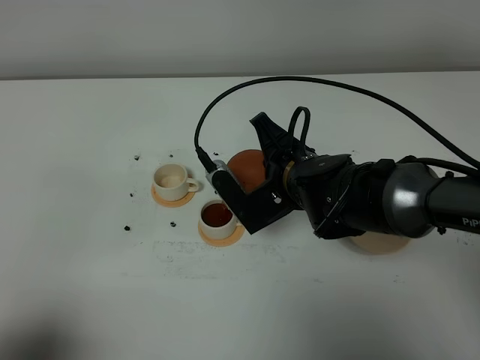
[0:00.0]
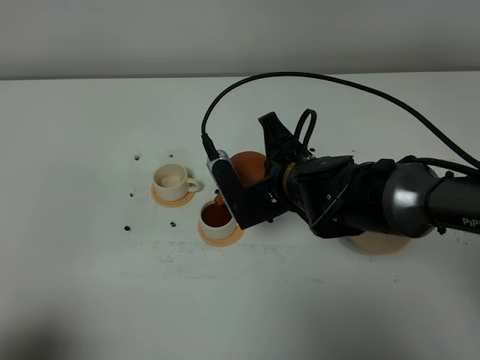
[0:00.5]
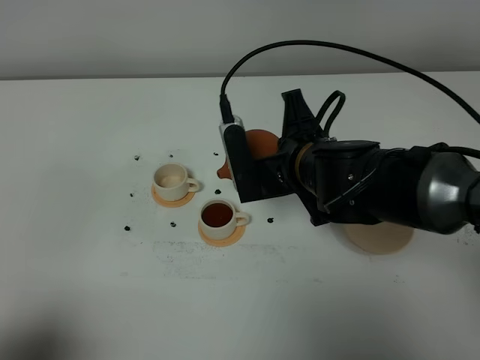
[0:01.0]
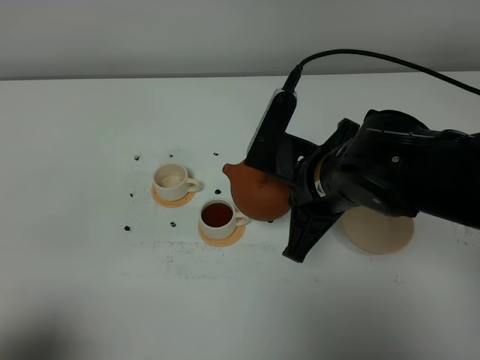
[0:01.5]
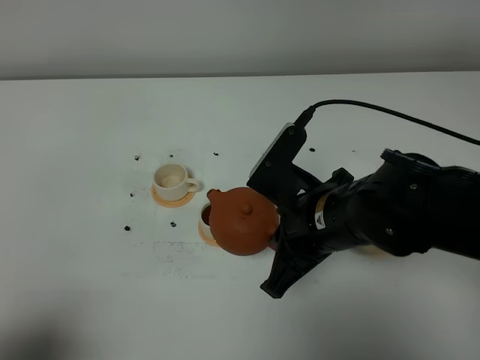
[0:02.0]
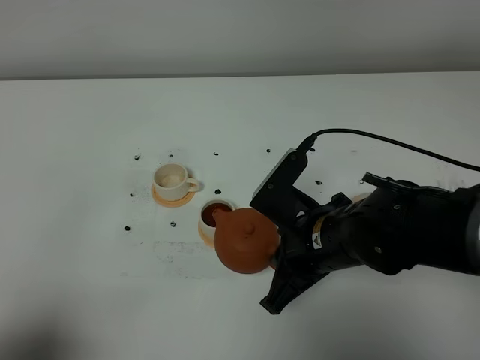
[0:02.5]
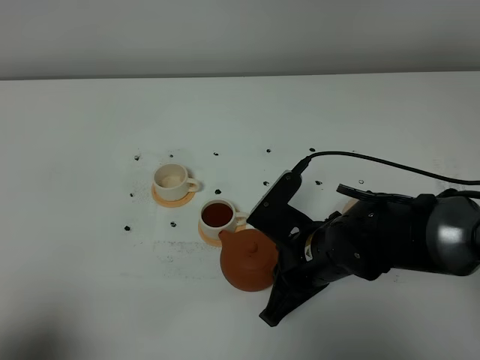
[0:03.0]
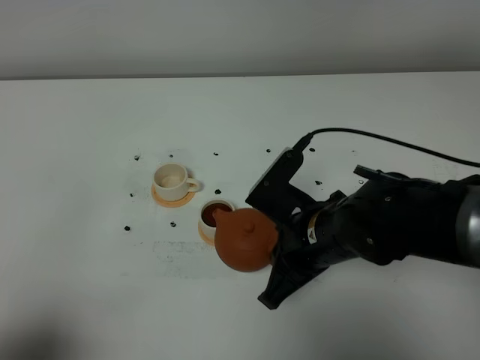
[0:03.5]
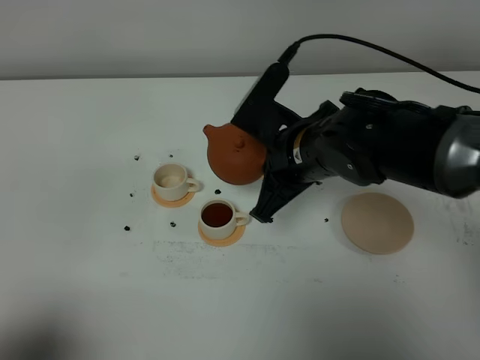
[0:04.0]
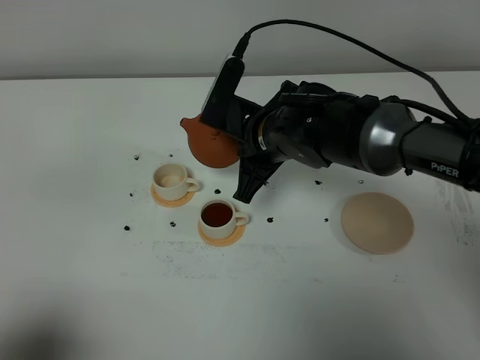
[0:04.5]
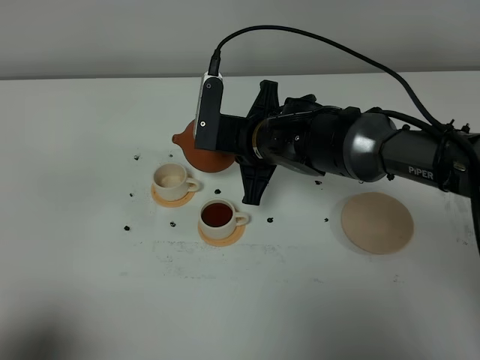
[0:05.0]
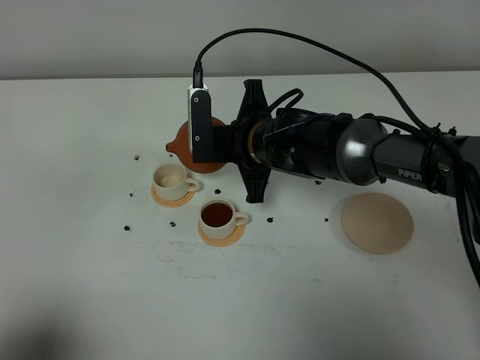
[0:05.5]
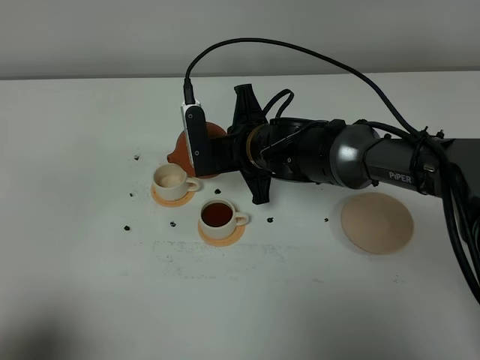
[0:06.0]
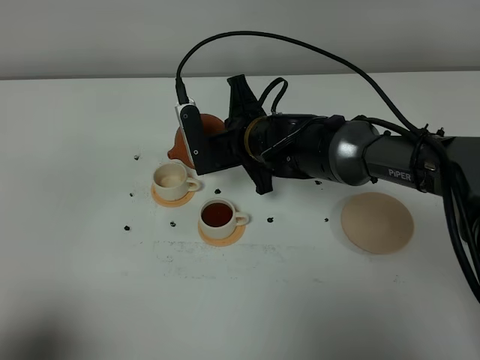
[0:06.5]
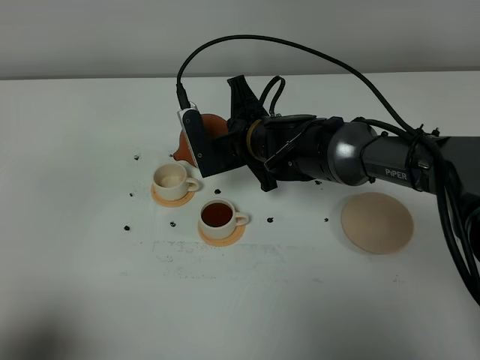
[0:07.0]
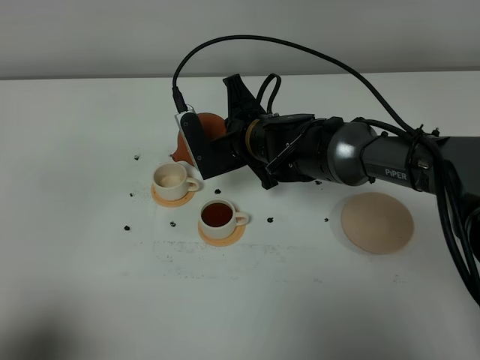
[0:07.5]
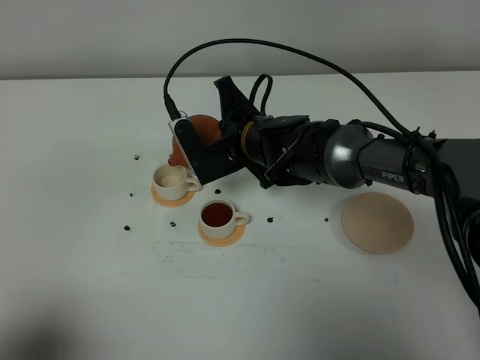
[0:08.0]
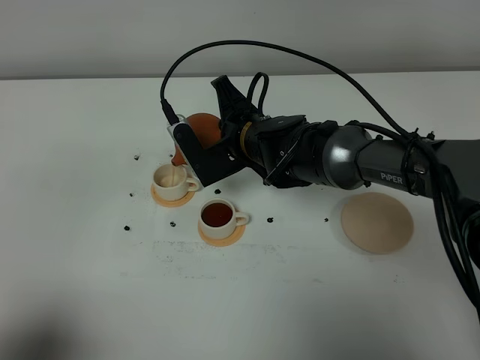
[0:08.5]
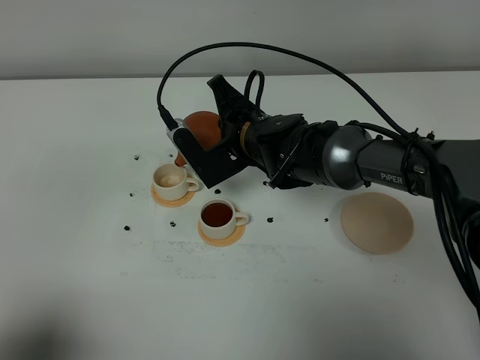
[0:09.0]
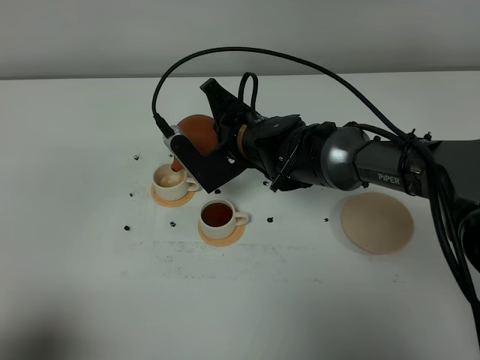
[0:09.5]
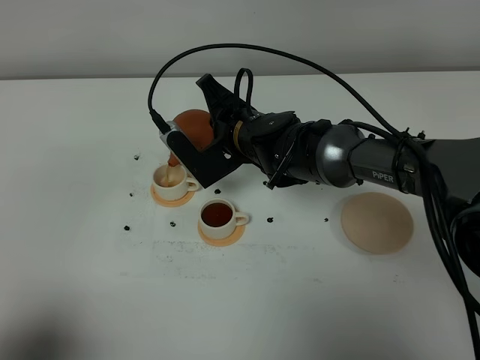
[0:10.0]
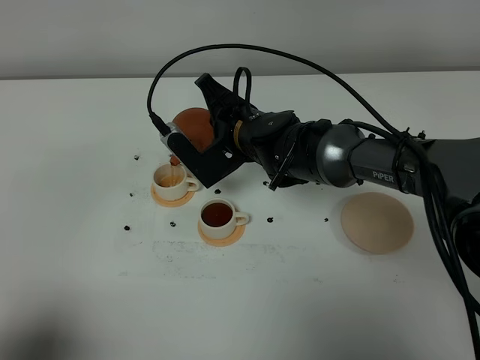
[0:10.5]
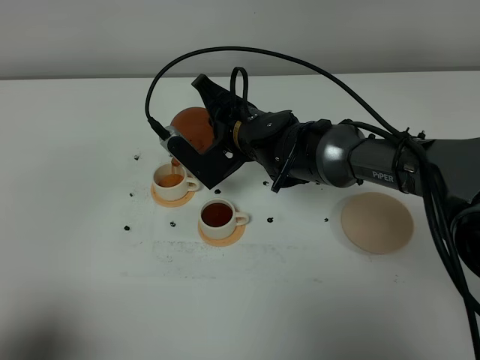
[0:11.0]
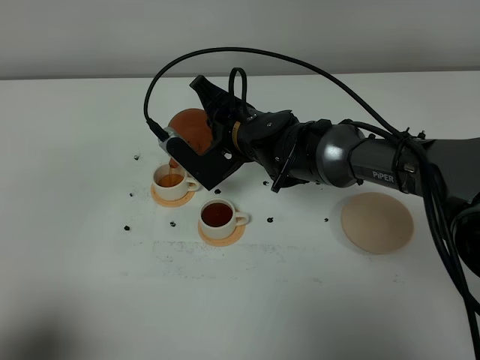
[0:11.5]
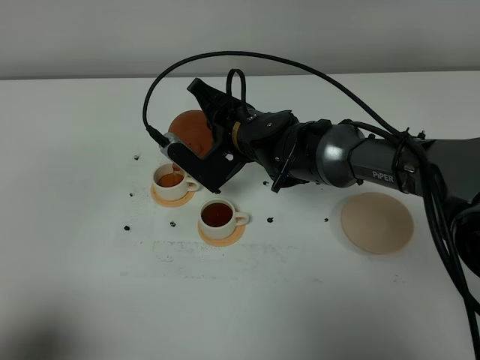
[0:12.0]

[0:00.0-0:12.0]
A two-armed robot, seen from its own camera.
Task of the whole recording: grasp the brown teapot and pour the tea into the two white teacups one by one, put the brown teapot back in its original place.
0:00.0 to 0:02.0: The right gripper moves backward, some 10 cm.
0:02.0 to 0:04.0: The right gripper shifts approximately 10 cm forward, and reaches about 5 cm downward, then returns.
0:04.0 to 0:06.0: The right gripper shifts approximately 10 cm downward and forward.
0:06.0 to 0:08.0: The grippers make only small movements.
0:08.0 to 0:10.0: The grippers make only small movements.
0:10.0 to 0:12.0: There are only small adjustments of the grippers.

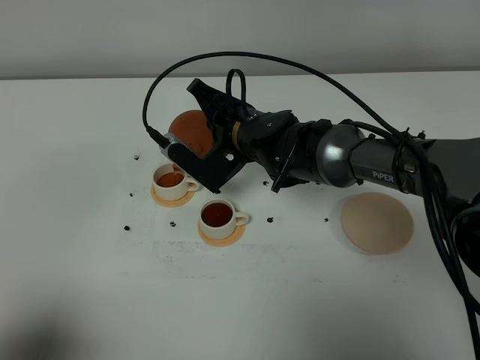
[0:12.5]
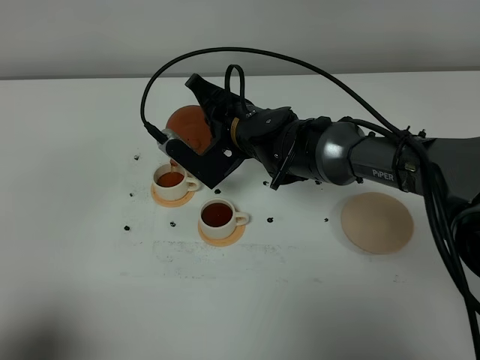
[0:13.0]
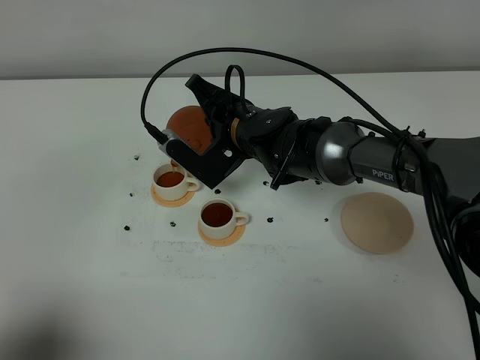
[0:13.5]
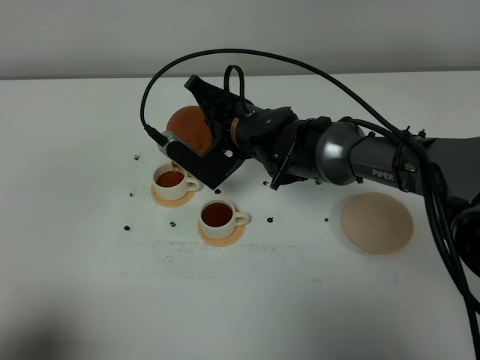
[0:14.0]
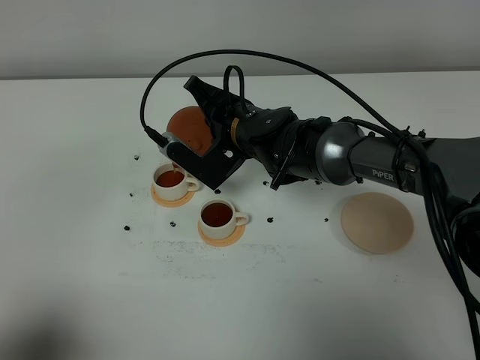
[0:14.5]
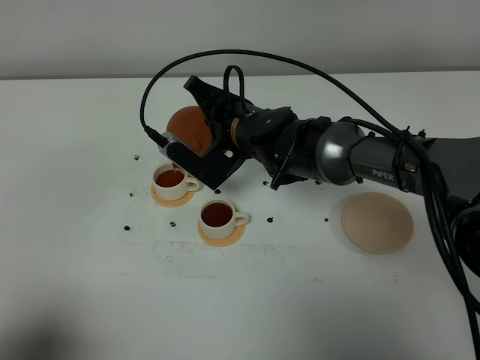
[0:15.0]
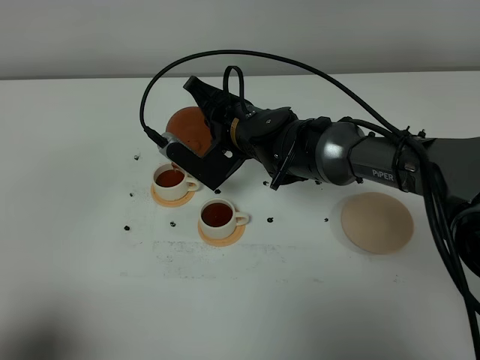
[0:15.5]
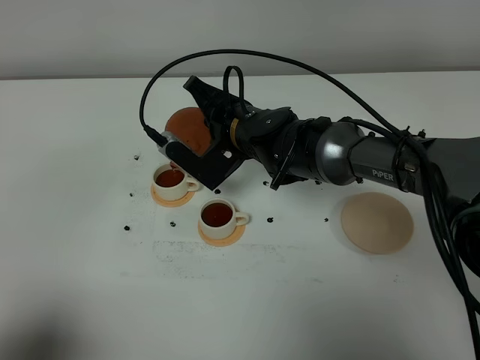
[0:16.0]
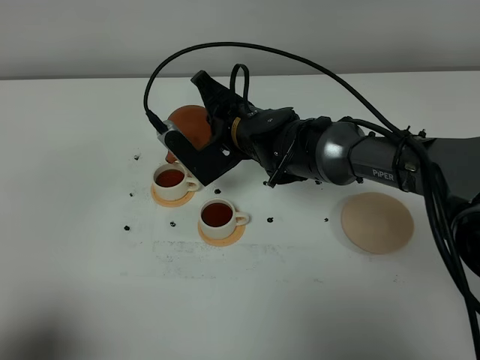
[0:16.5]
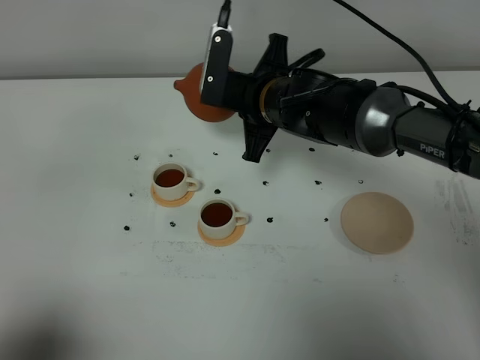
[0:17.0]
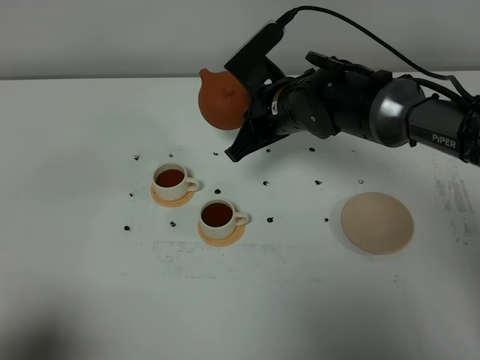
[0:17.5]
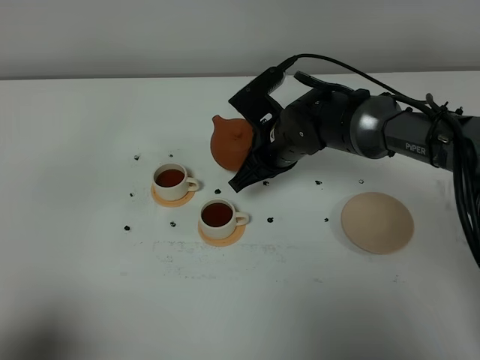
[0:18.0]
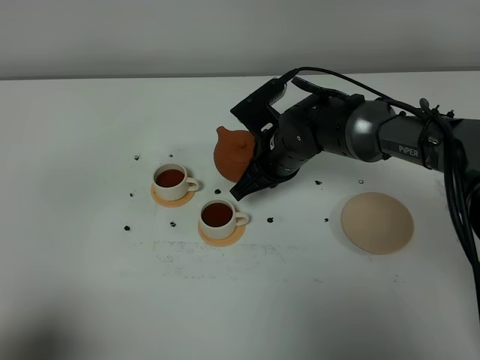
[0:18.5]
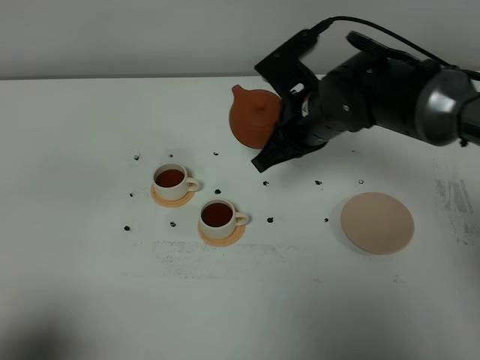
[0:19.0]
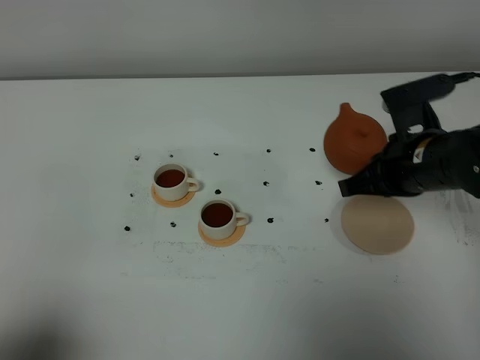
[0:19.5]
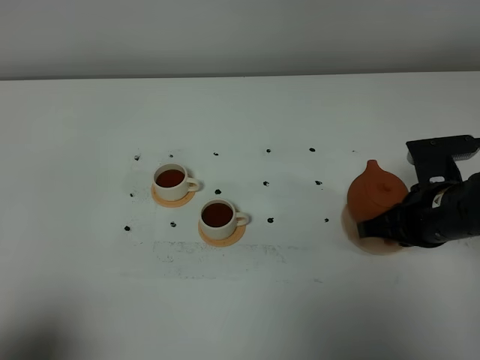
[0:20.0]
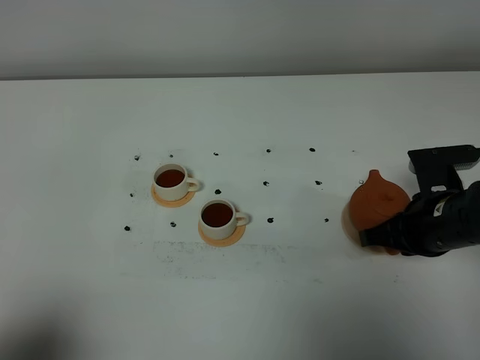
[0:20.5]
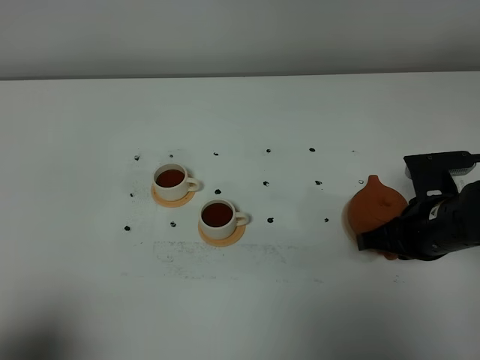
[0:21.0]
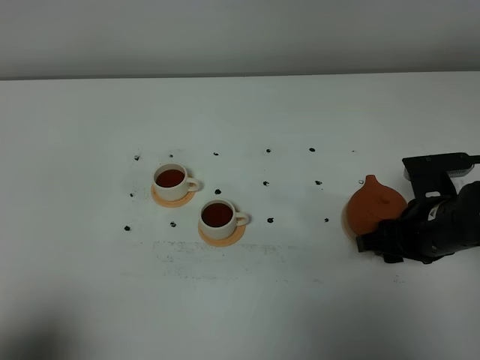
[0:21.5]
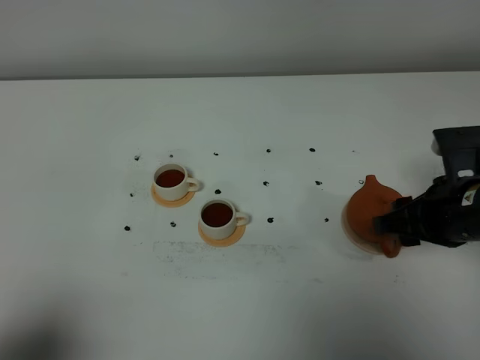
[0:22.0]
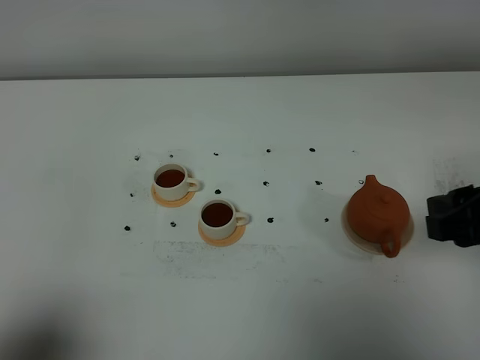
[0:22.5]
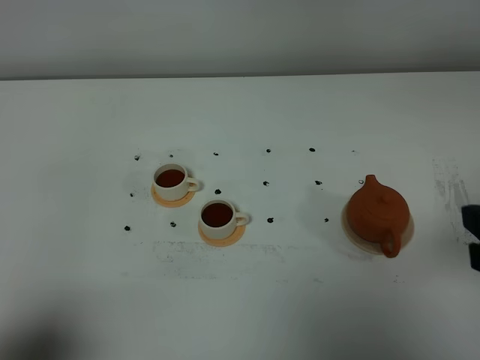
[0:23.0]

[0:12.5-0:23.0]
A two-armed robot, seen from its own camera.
Task of the whole recording: grasp the brown teapot and pour the tea into the two white teacups one by one, put the brown teapot back in its original place.
Step, 0:12.5 to 0:16.5: Pour tea into the teacup with the right gripper.
0:12.5 to 0:14.5: Both grippers stay put.
0:14.5 to 0:16.5: The grippers make only small movements.
0:16.5 to 0:19.0: The right gripper heads to the right, covering approximately 10 cm.
0:19.0 to 0:21.0: The right gripper goes approximately 20 cm to the right, backward and downward.
0:21.0 to 0:23.0: The right gripper goes some 20 cm upward and backward, and opens up.

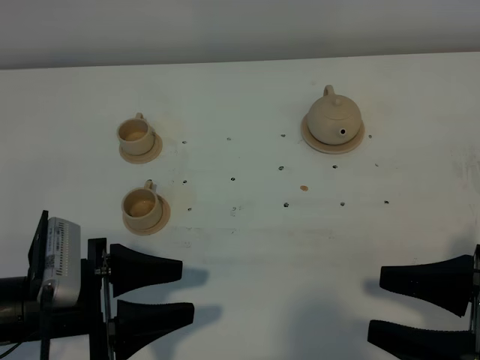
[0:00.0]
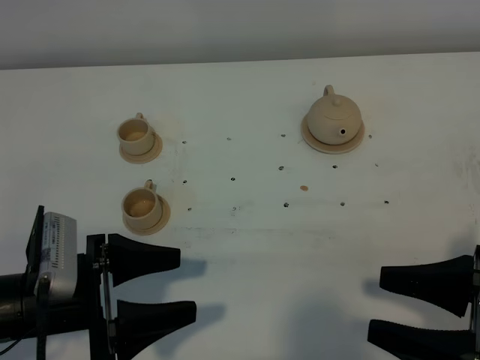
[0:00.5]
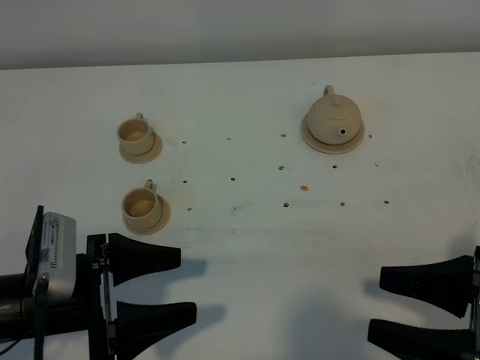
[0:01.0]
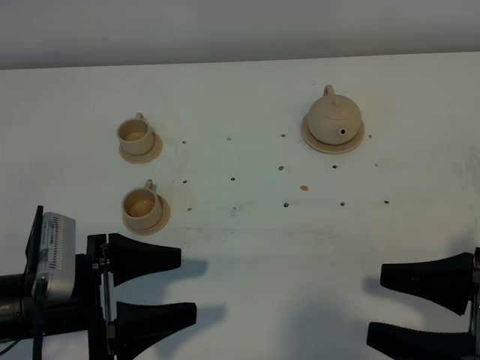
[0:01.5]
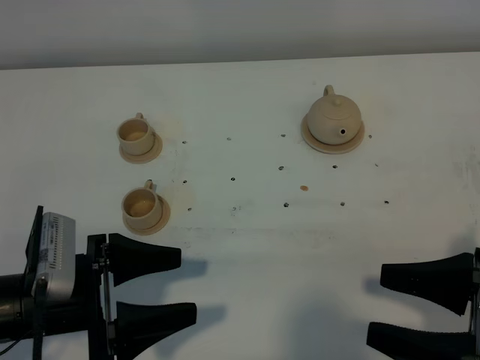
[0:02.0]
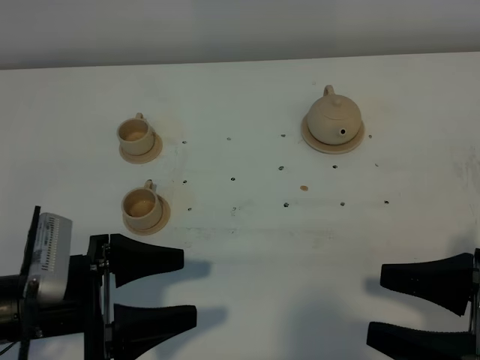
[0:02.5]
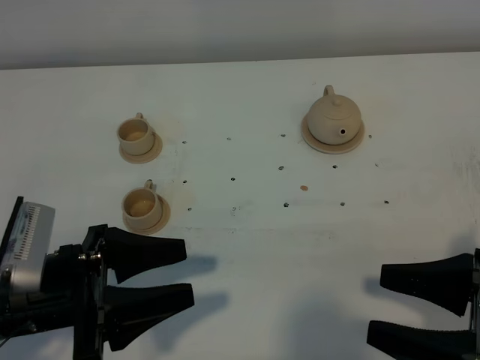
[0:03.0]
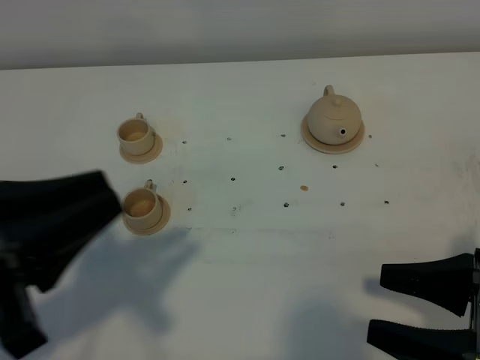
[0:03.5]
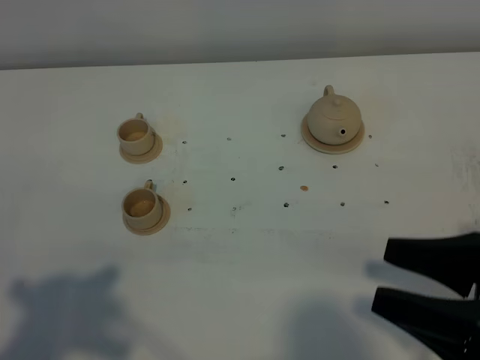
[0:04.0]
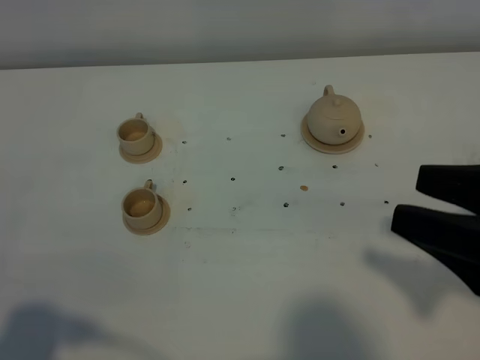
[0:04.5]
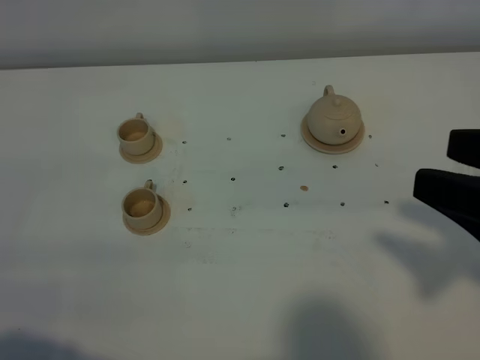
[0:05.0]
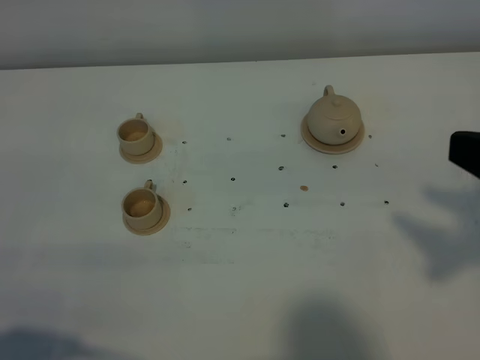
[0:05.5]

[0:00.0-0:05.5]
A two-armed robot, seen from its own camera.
Task of the whole recording: grasp the brown teapot and pour the tea into the two brown teacups one by one, put the brown teapot back in its original place.
0:00.0 to 0:02.0: The two grippers keep their place.
0:02.0 to 0:03.5: The left gripper heads upward, covering about 15 cm, and closes its fingers.
0:03.5 to 0:05.5: The left gripper heads backward and to the left, covering about 10 cm, while the right gripper travels upward by some 15 cm.
